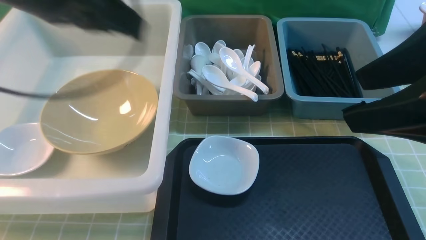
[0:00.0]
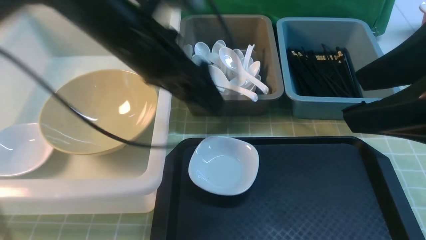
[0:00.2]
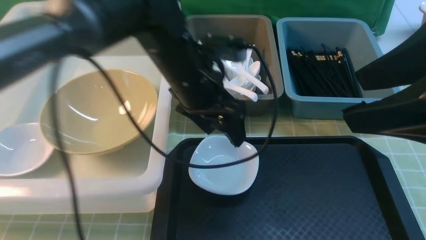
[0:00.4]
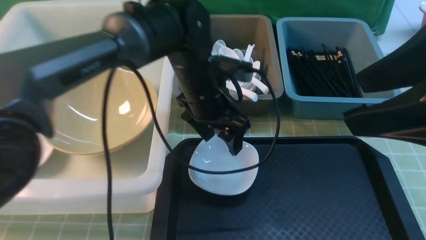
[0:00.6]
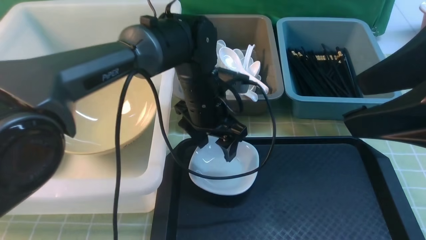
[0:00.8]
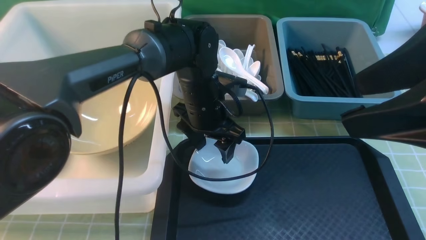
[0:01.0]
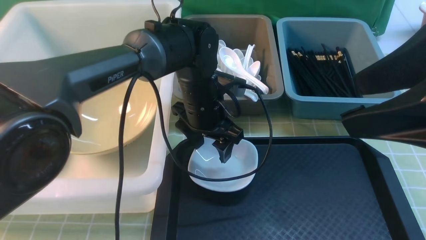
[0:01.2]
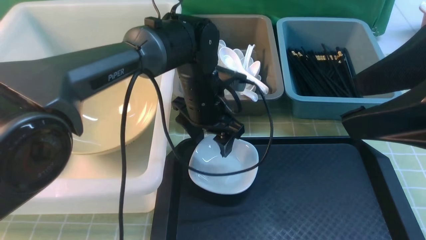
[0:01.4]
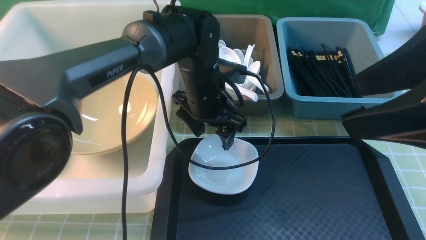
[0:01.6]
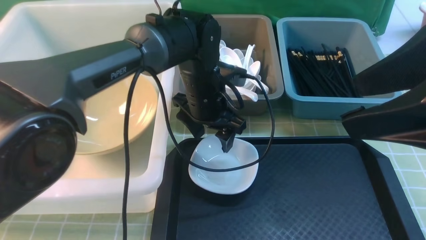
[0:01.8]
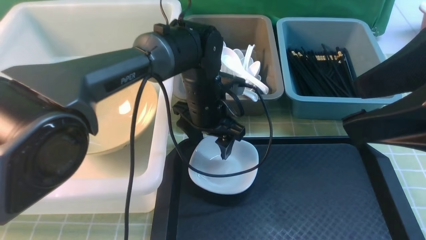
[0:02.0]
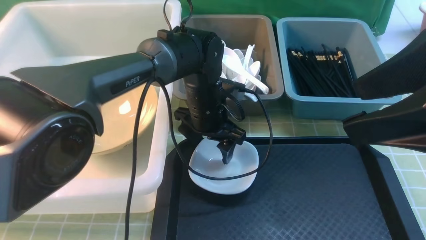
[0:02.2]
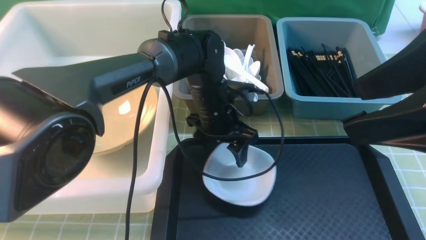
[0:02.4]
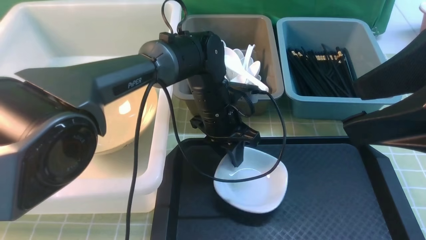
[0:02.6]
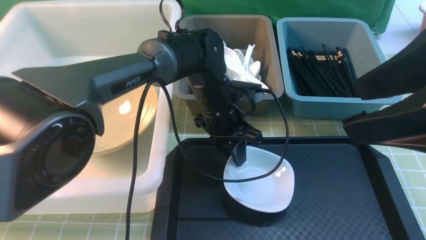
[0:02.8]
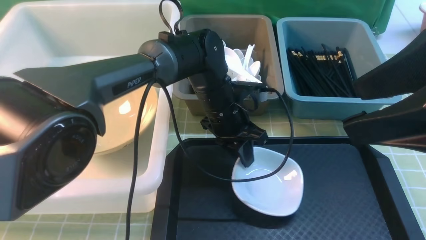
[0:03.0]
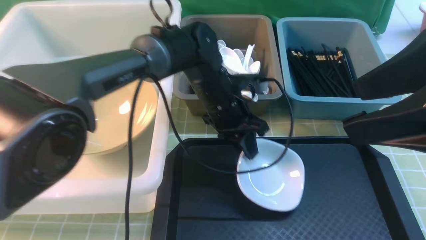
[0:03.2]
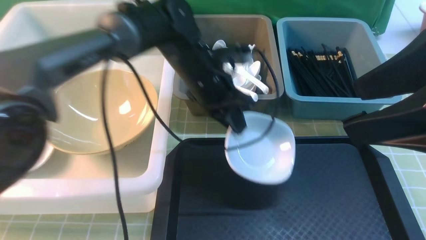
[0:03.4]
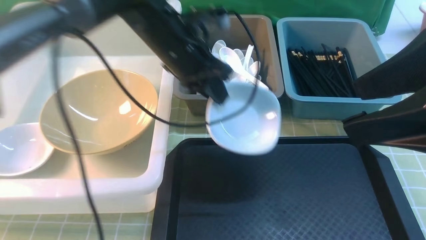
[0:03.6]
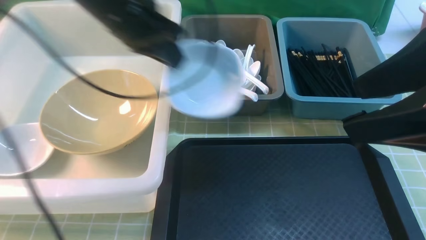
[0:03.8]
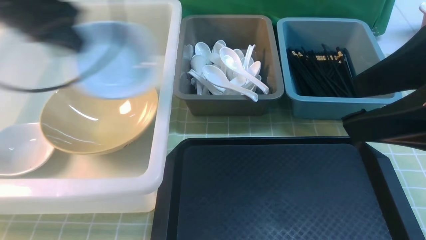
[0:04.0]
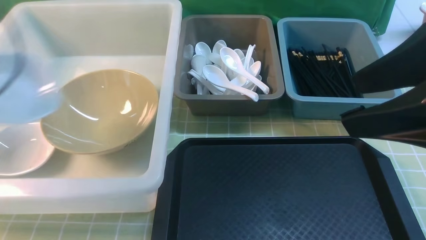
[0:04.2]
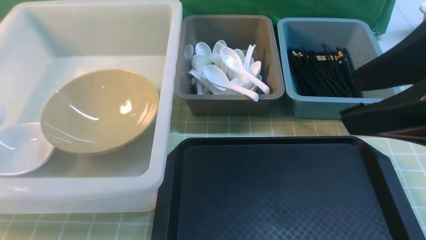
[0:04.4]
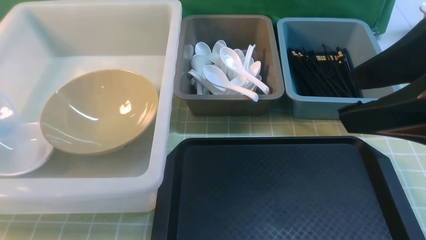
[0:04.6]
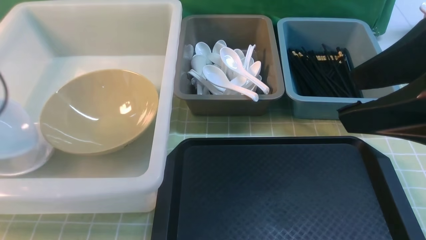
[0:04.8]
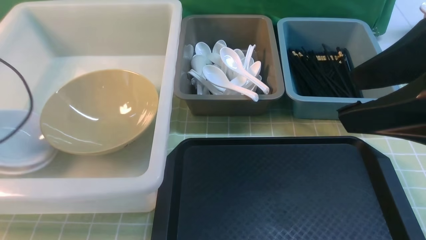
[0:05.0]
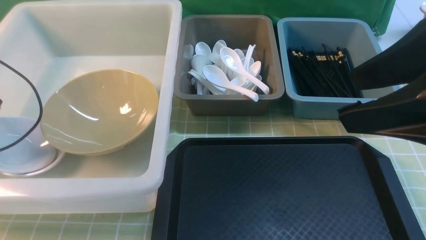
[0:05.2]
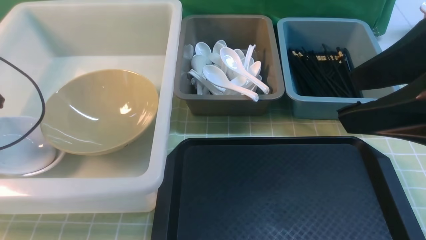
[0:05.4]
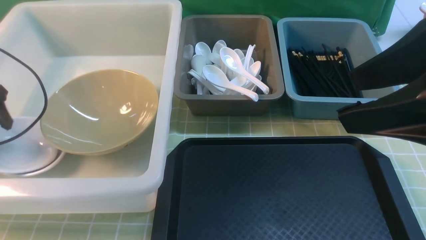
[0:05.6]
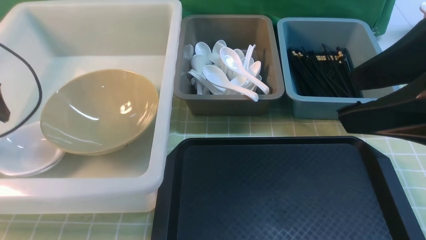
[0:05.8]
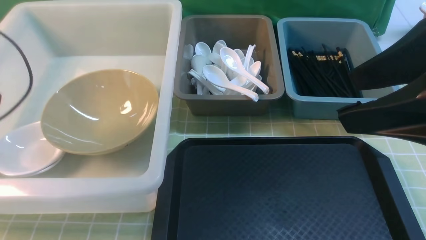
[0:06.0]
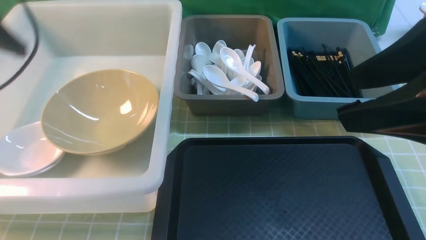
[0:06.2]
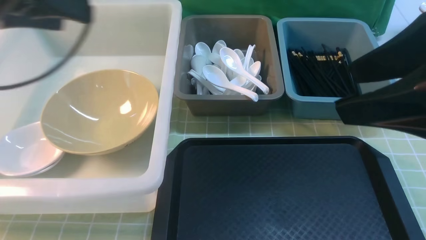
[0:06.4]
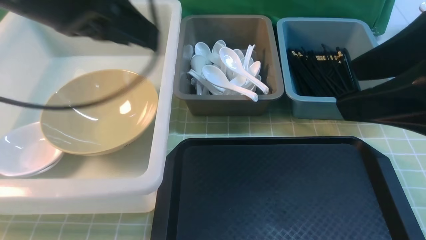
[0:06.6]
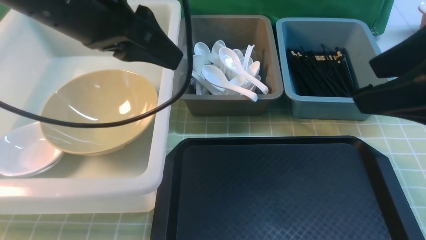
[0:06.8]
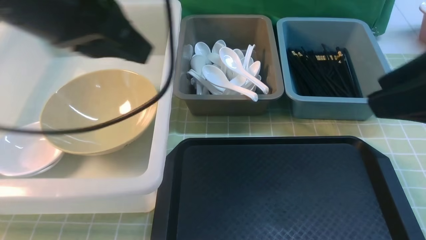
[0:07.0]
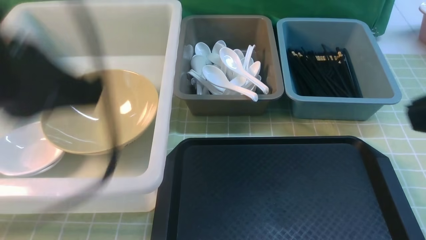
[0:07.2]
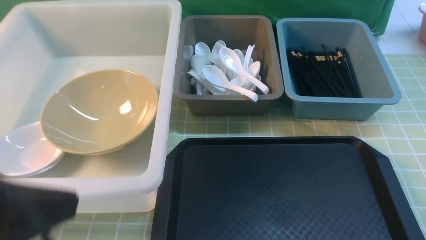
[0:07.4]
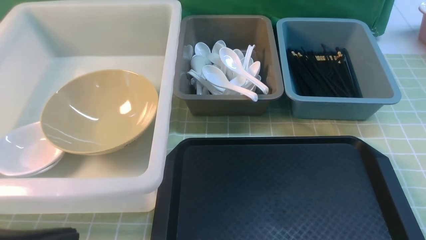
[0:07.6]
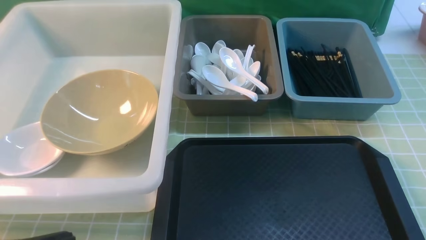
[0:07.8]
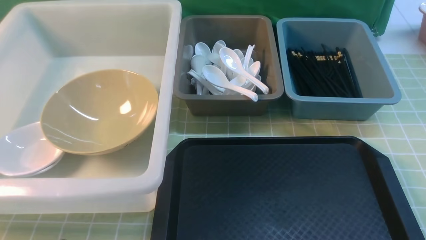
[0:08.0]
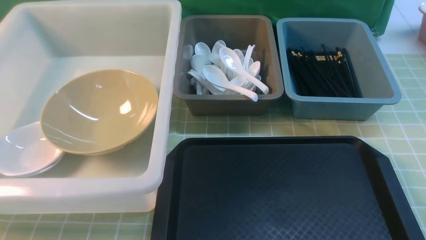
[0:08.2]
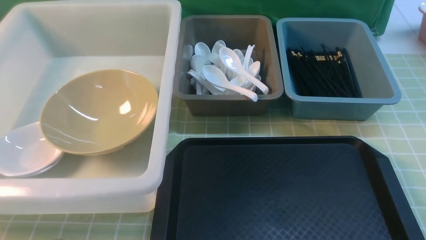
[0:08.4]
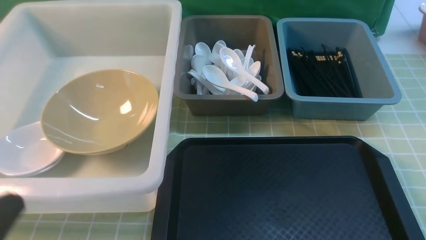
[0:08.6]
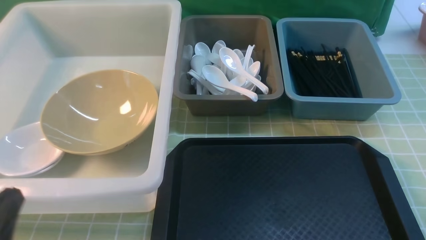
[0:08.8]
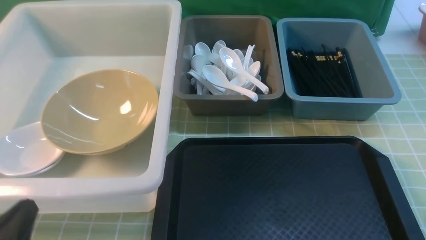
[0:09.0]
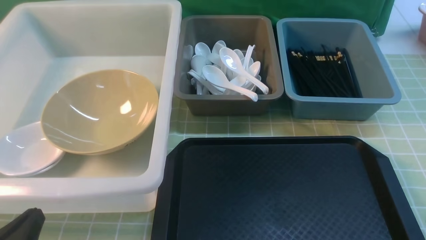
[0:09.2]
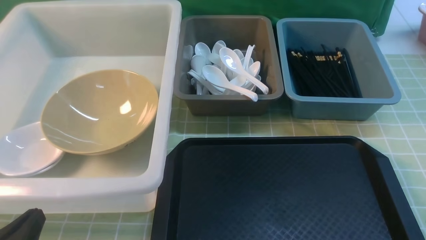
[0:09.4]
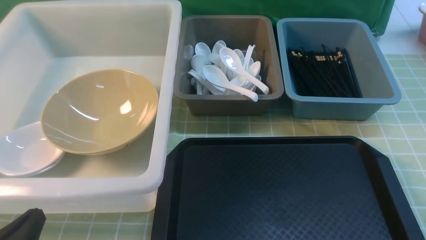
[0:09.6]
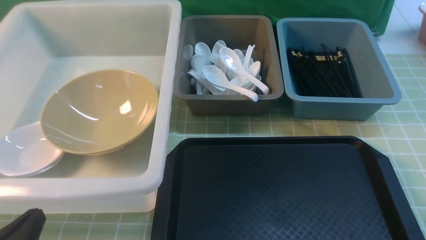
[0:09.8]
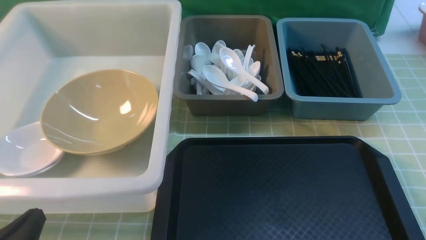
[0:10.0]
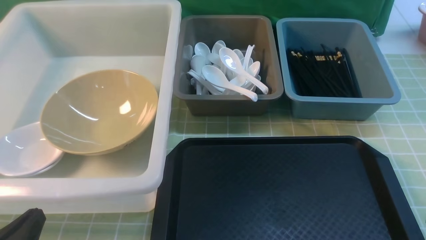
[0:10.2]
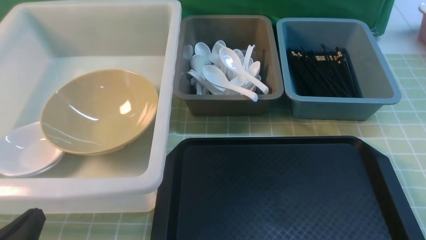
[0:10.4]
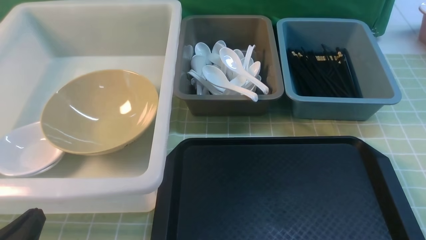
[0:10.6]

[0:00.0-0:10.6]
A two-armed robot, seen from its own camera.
Task of the whole recording: on green table put chopsticks spoon bowls plates into blue grey white boxes.
Step, 0:00.0 to 0:03.4: use the left arm to grab the plate.
Step, 0:03.6 to 0:06.2: use the left arm to put the plate into the large storage box on the left.
0:00.0 to 0:01.6: The left gripper heads downward and to the right, covering some 25 cm.
0:01.6 to 0:03.0: The left gripper closes up.
0:03.0 to 0:04.6: The left gripper heads to the left, covering roughly 50 cm.
0:04.6 to 0:06.0: The left gripper moves to the right, about 10 cm, reaches approximately 5 cm downward, then returns, and opens up.
0:06.0 to 0:07.6: The left gripper is displaced backward and to the right by about 30 cm, and closes its fingers, while the right gripper heads backward, downward and to the right, covering approximately 15 cm, and closes its fingers.
0:07.6 to 0:09.0: The left gripper heads downward, covering roughly 10 cm.

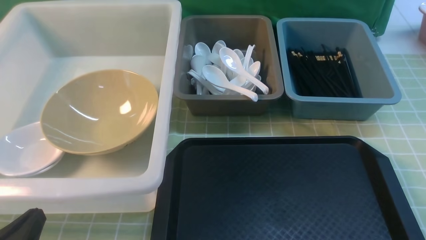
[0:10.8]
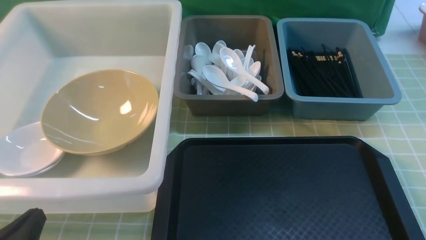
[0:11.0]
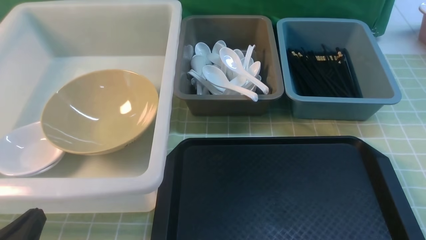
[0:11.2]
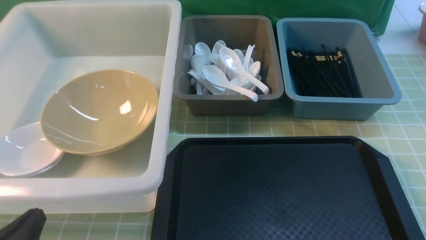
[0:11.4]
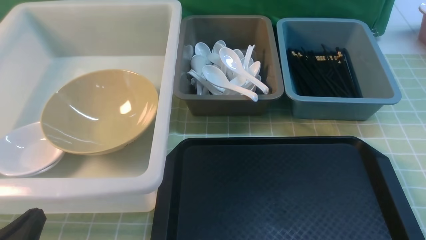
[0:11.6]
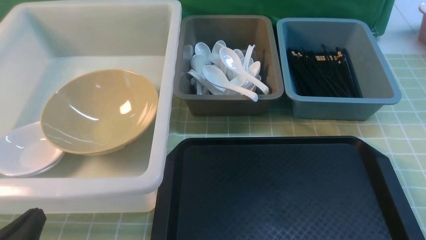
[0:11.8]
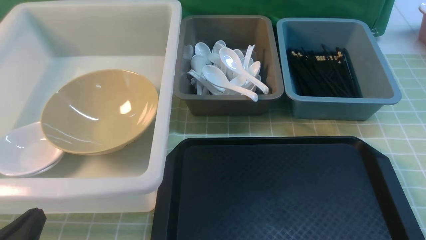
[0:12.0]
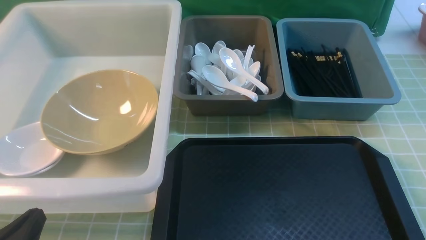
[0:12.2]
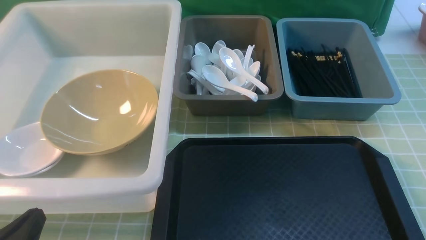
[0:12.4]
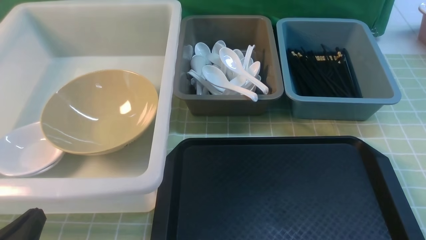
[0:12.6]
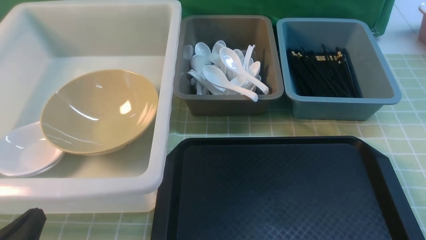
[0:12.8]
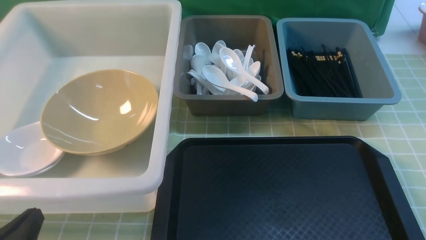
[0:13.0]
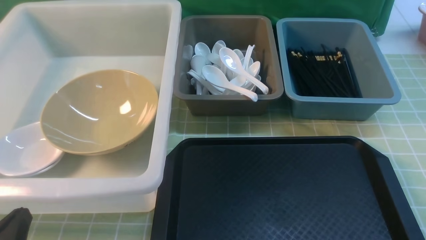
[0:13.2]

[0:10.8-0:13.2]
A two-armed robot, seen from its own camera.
Task of the whole recording: on green table put chopsticks spoon bowls plates into blue grey white boxes.
0:12.0 to 0:13.2: Both grippers stay put.
